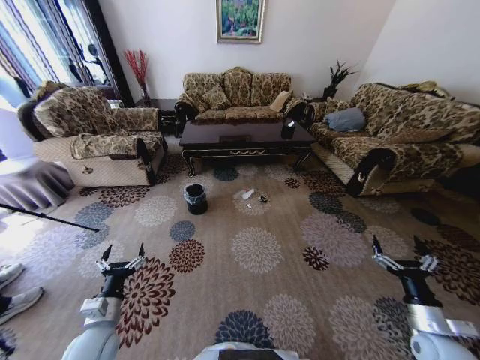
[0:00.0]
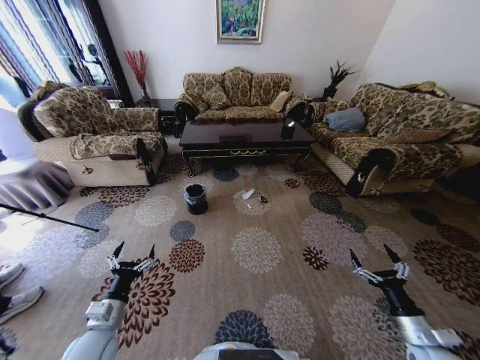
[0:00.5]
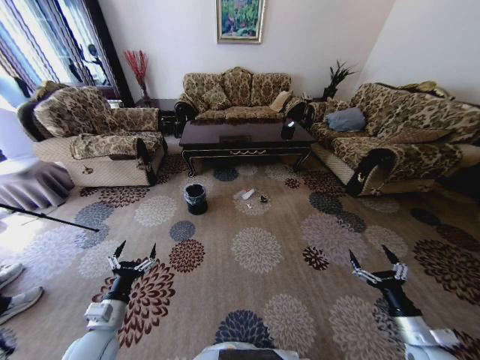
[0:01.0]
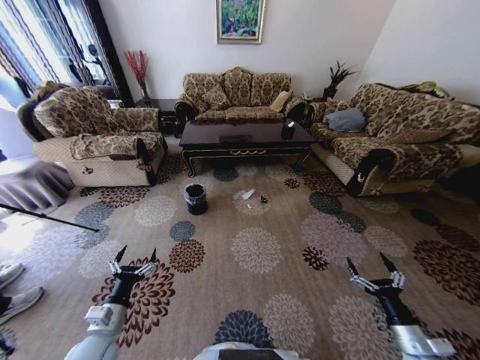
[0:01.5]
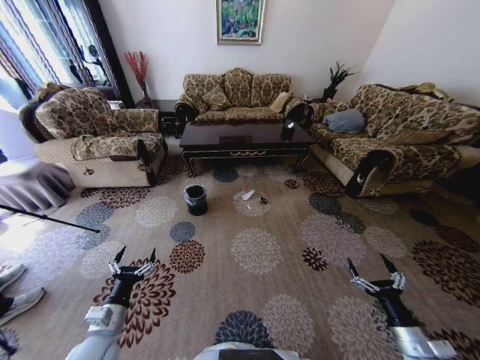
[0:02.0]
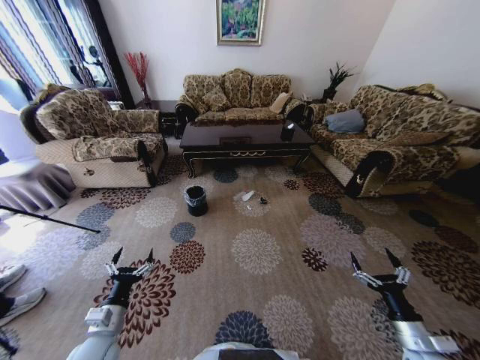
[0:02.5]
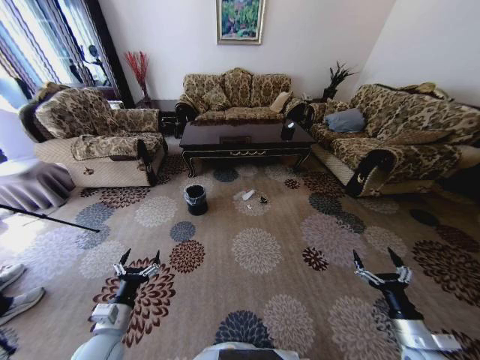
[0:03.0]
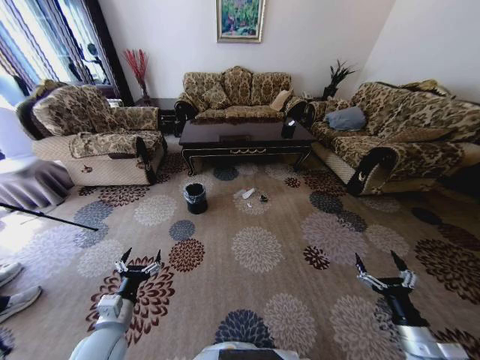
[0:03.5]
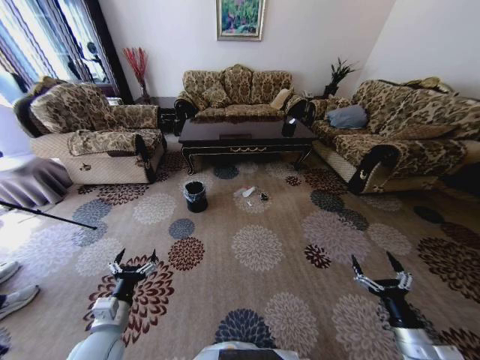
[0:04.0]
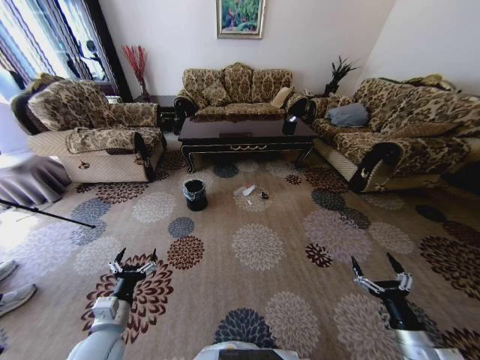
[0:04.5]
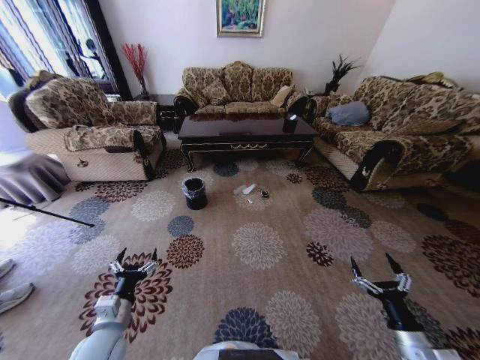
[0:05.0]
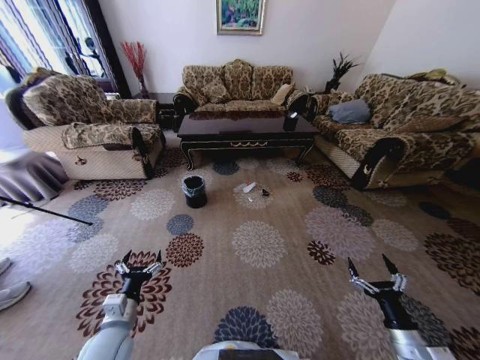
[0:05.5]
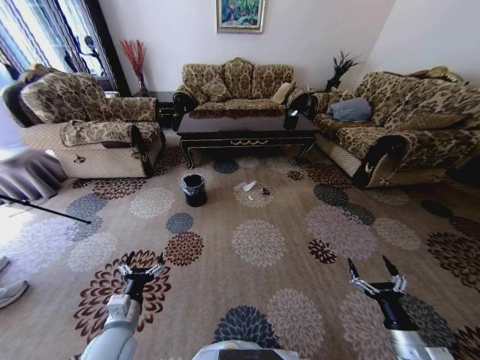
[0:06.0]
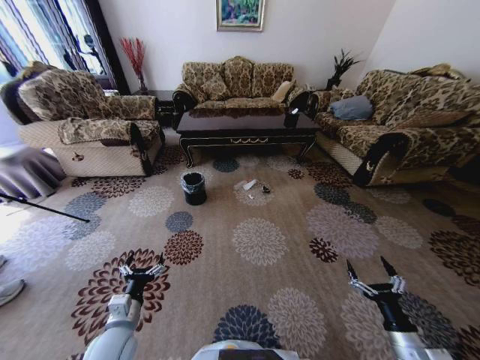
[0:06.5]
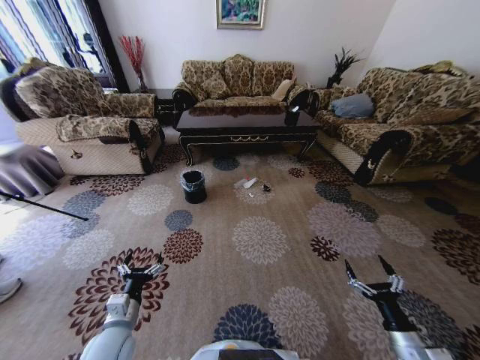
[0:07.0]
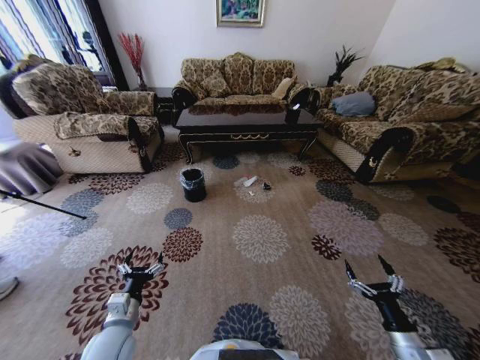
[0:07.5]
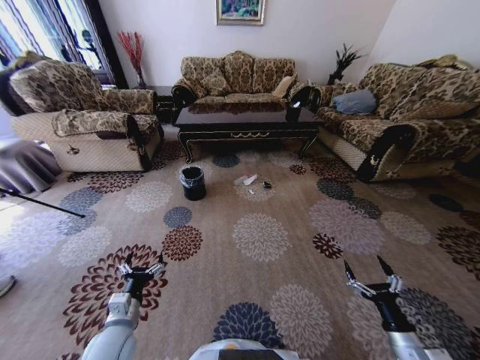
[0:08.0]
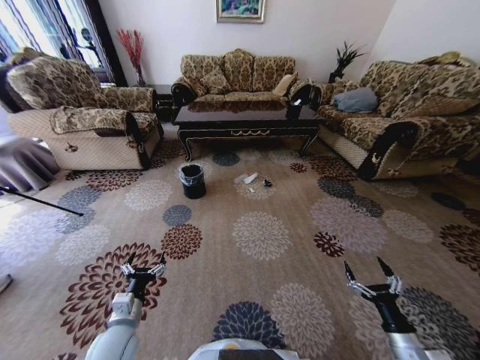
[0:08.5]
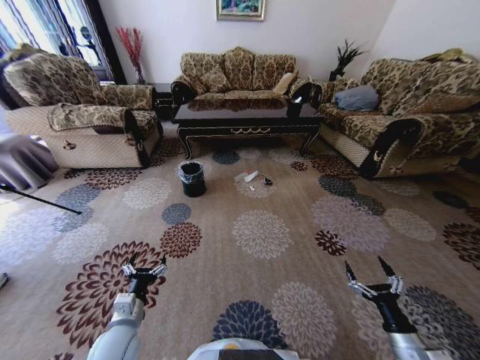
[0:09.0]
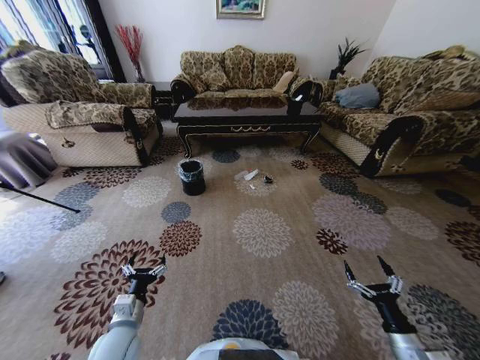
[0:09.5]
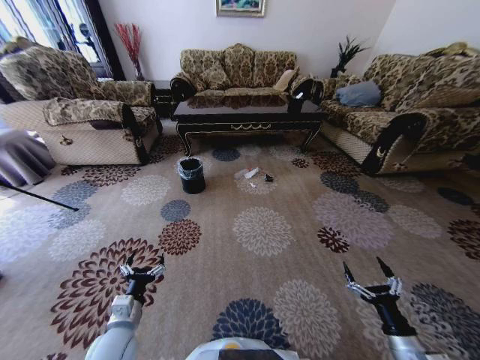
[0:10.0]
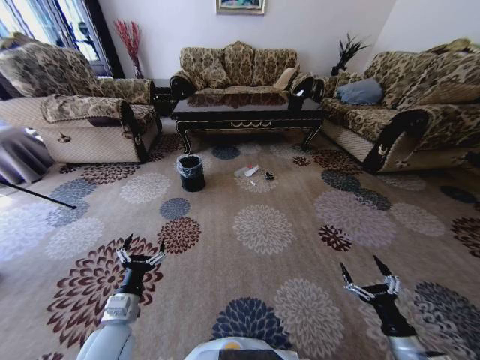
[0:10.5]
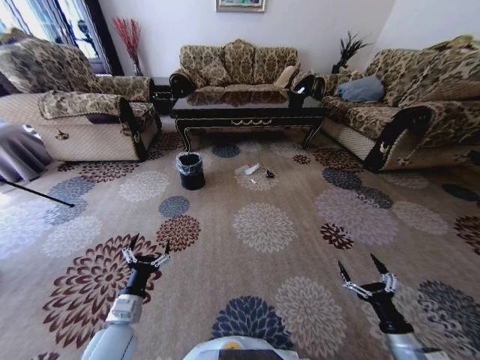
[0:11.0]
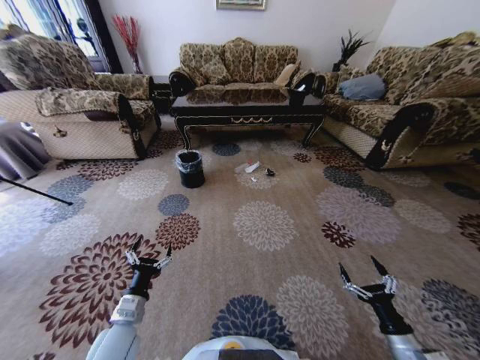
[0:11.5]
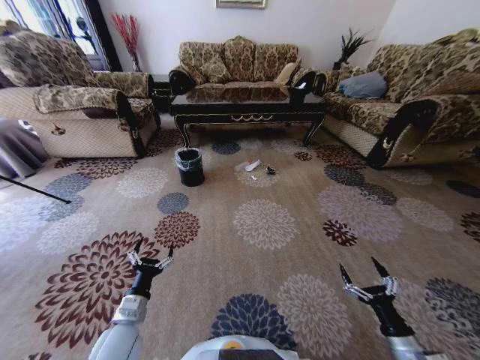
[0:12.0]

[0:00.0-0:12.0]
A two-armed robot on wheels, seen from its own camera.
Task of the whole recording: Move to the front of the table and pick up the trash from the floor, then place it into the trash bin.
0:02.0 to 0:04.0: There are only small adjustments of the grippers.

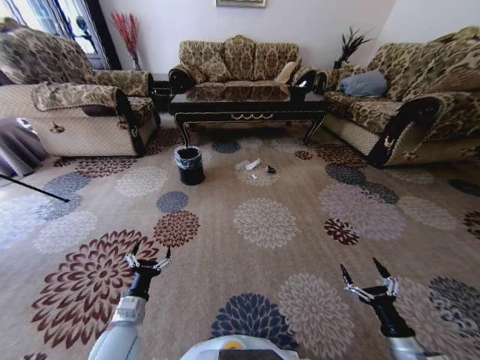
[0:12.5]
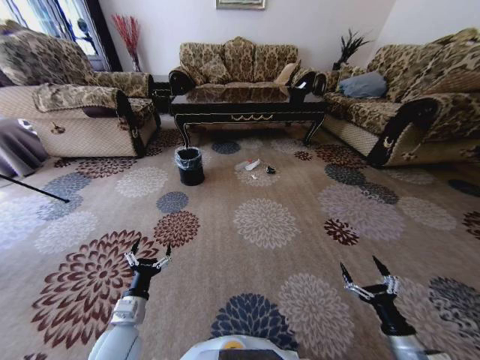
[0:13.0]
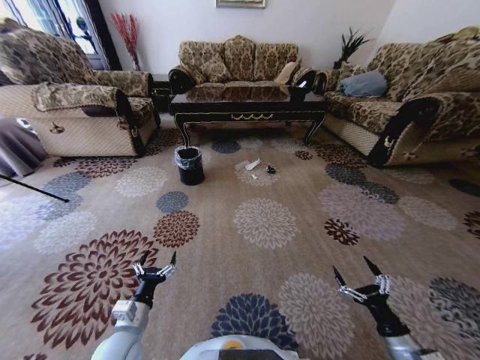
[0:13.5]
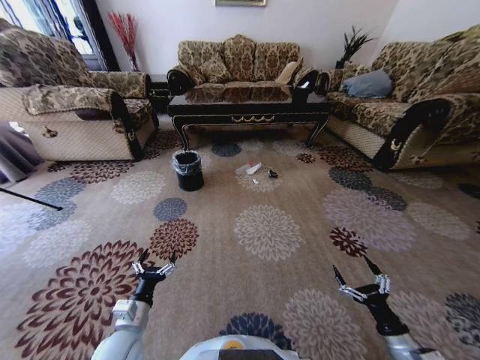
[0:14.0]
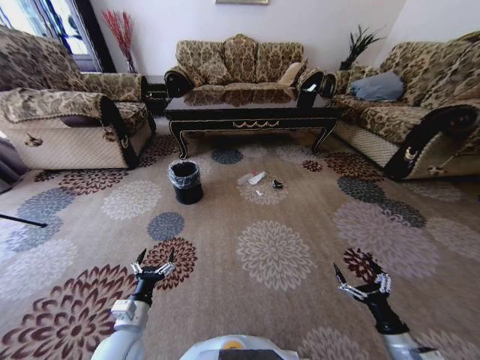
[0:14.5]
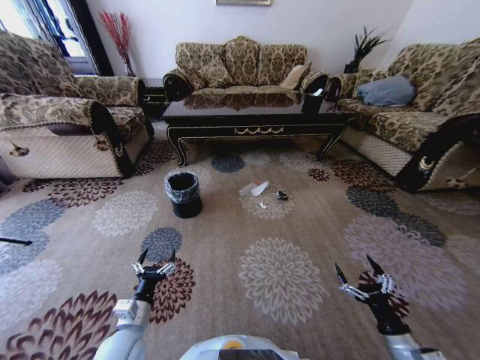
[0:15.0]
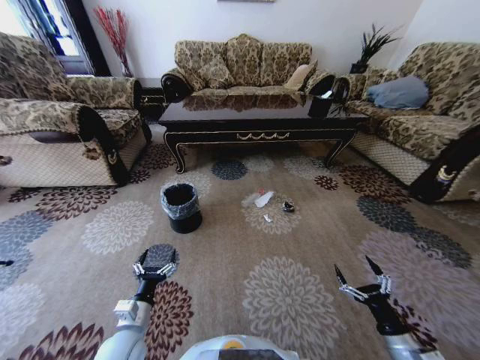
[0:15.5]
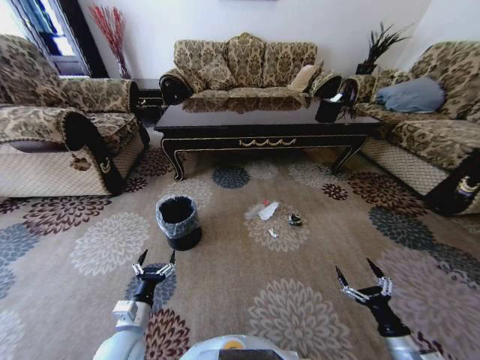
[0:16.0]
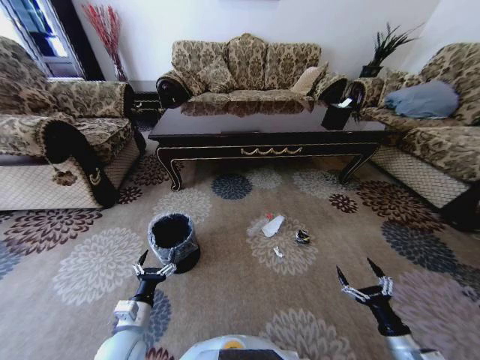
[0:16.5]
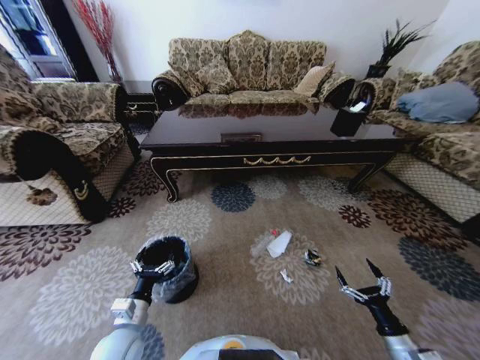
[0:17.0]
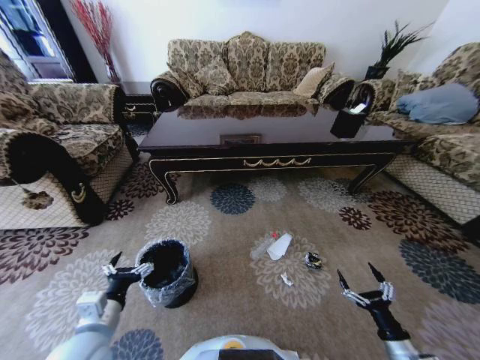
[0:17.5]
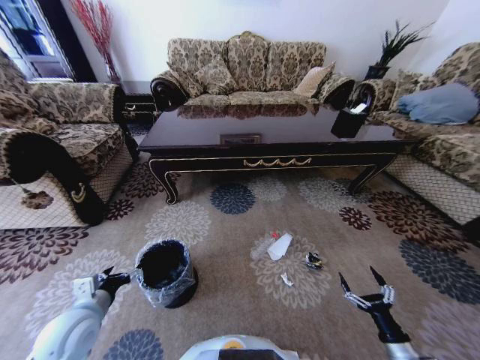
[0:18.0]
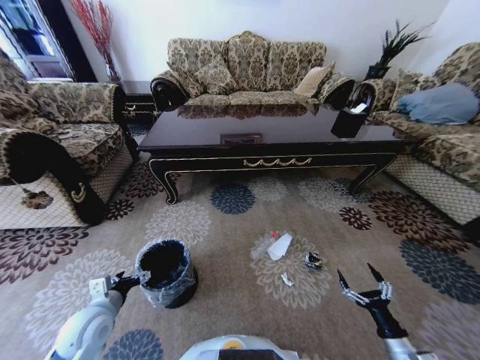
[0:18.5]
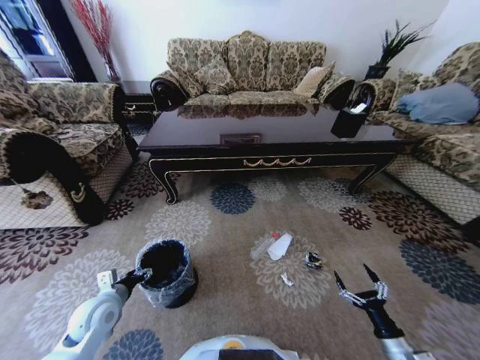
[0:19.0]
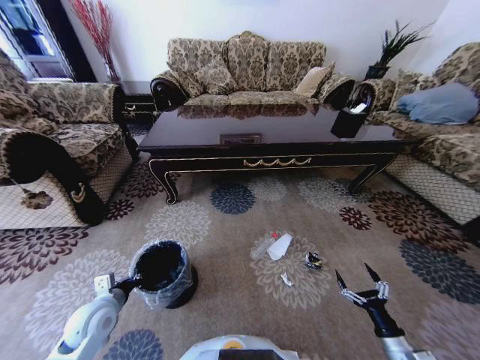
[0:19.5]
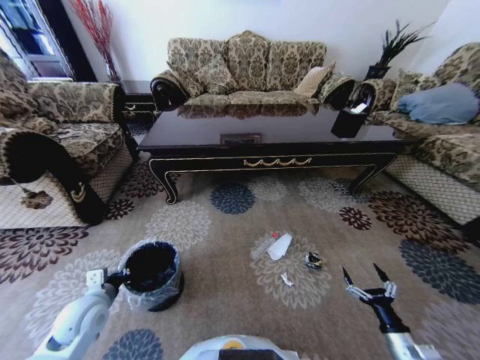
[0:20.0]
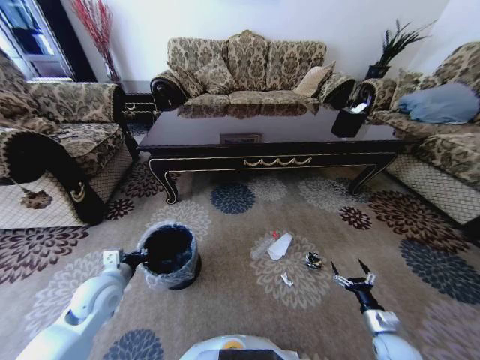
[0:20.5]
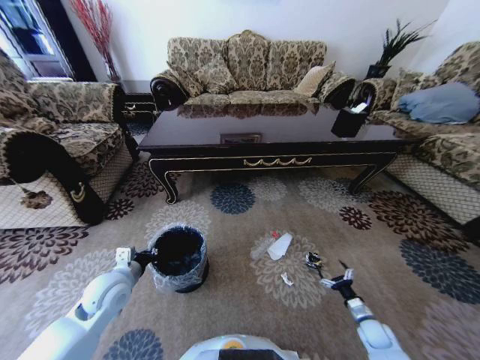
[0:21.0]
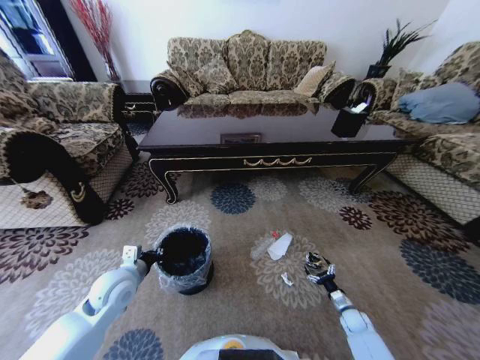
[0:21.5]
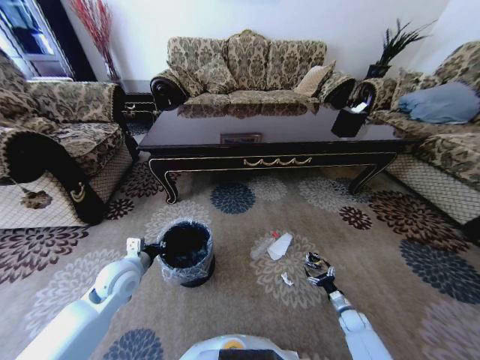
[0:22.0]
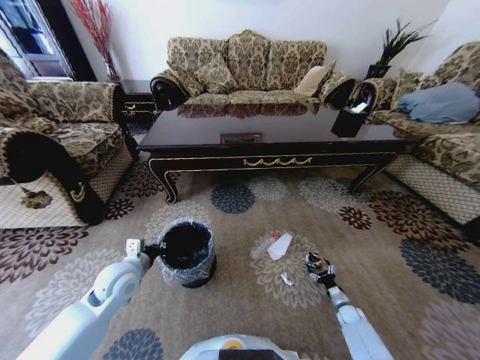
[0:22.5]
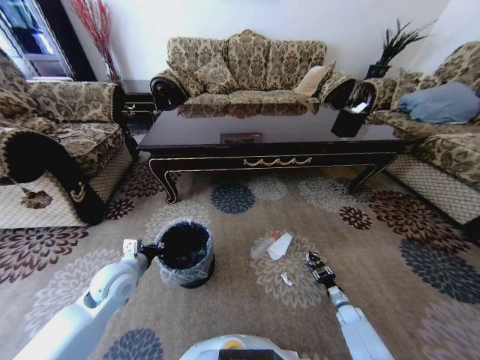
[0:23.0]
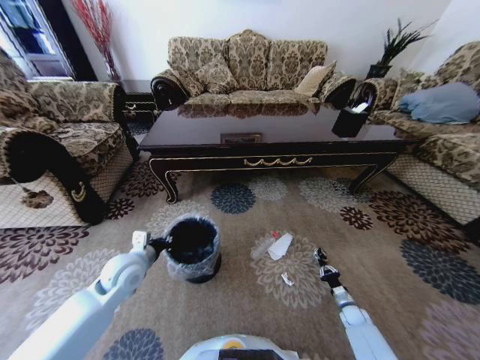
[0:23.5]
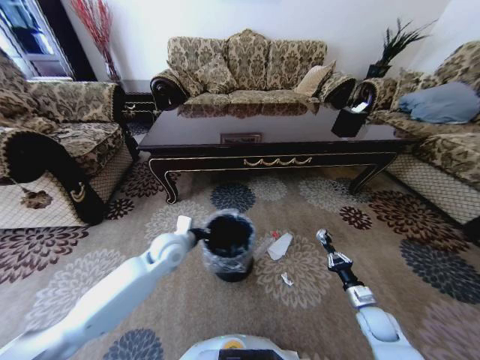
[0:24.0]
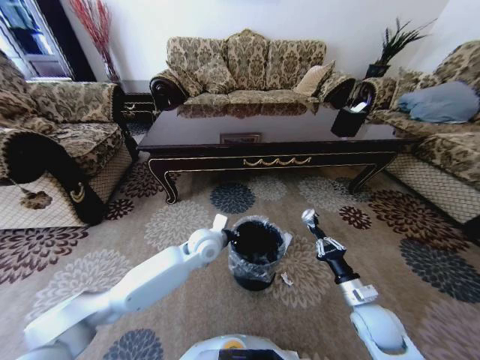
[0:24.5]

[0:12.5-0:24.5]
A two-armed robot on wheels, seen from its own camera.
Task of the whole recording: Move to the front of the table and pick up the trash from the floor, then place it into the trash bin.
0:16.5 to 0:18.5: The left gripper is displaced to the left by some 10 cm.
0:18.5 to 0:20.5: The grippers both shift forward by about 5 cm. The left gripper closes.
0:20.5 to 0:22.5: The right gripper is displaced downward and forward by approximately 15 cm.
0:22.5 to 0:24.5: The right gripper goes roughly 30 cm upward and to the left, and closes. The left gripper goes about 25 cm to the right and forward.

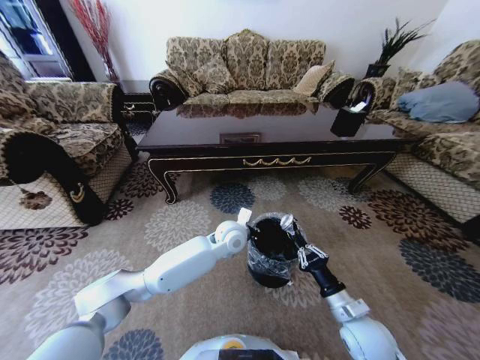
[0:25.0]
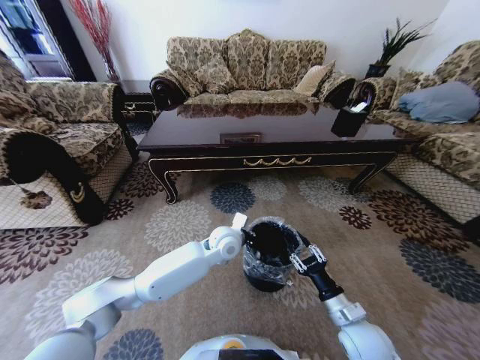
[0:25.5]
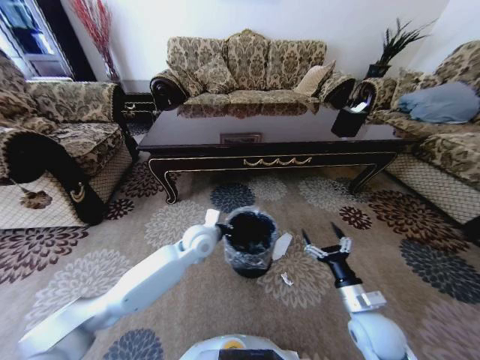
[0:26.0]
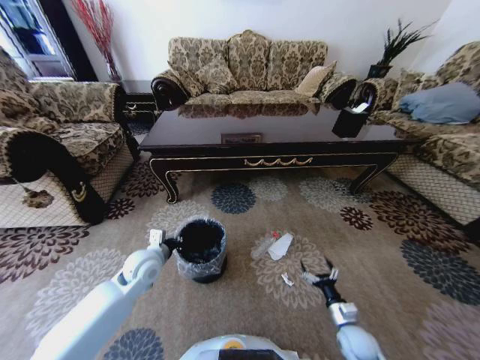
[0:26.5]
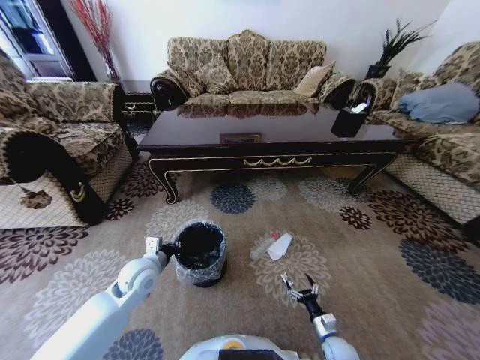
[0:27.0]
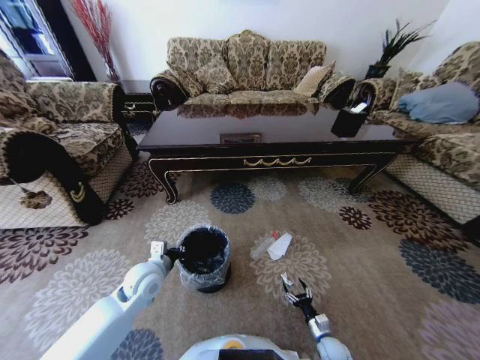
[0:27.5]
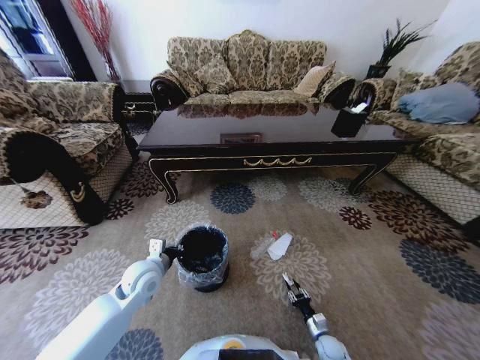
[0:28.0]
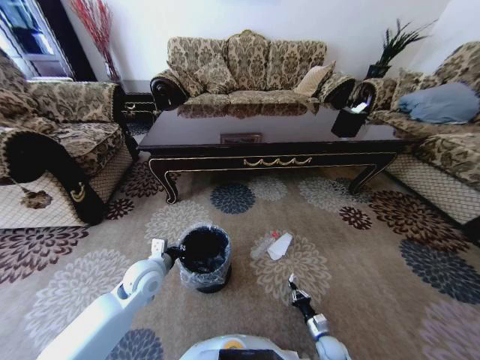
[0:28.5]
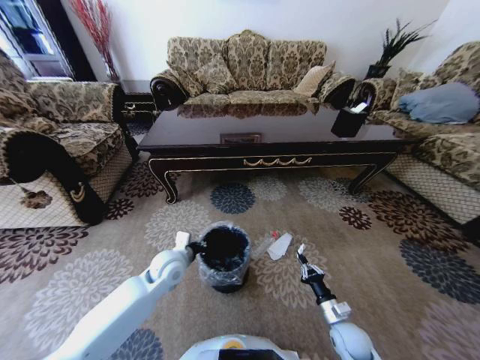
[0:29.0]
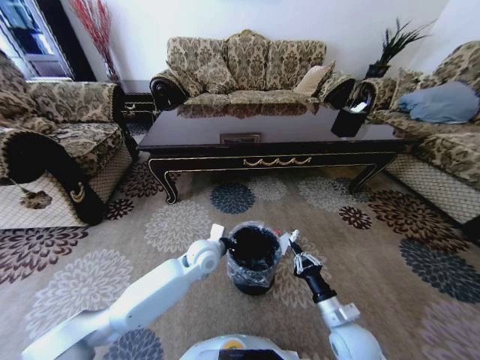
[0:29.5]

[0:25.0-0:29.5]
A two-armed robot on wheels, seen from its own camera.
Task of the whole recording: Move to the front of the table and pick up the trash from the floor, then place it into the trash bin.
0:25.0 to 0:27.0: The right gripper shifts some 25 cm downward, and opens its fingers. Meanwhile the left gripper heads to the left, covering roughly 25 cm.
0:27.0 to 0:29.5: The right gripper is displaced upward by roughly 20 cm, and closes; the left gripper heads to the right, covering about 15 cm.
